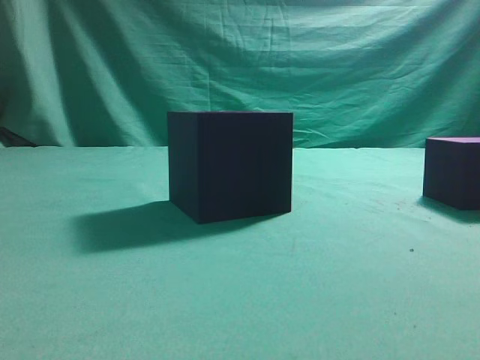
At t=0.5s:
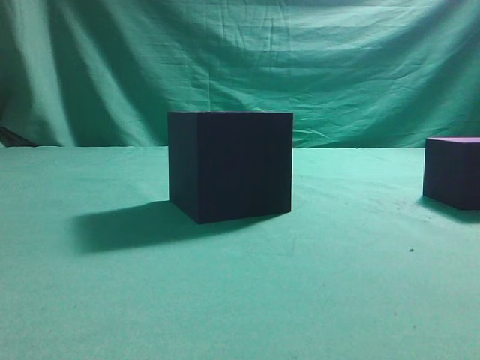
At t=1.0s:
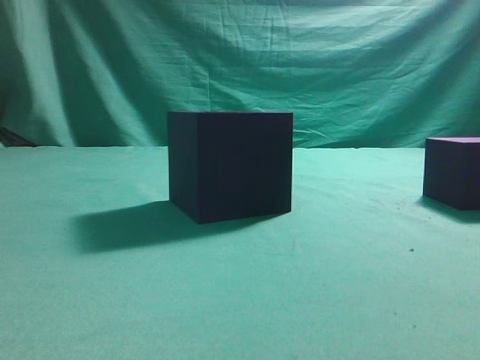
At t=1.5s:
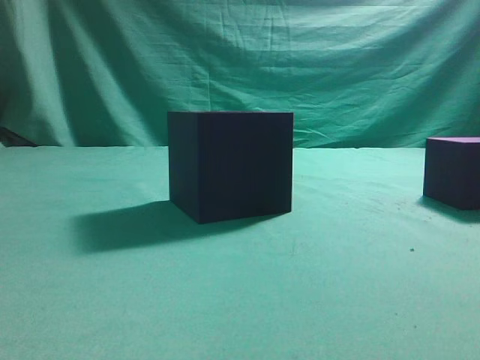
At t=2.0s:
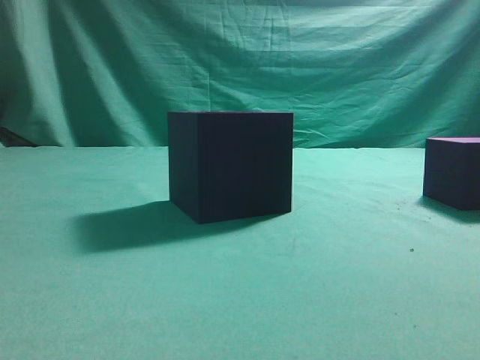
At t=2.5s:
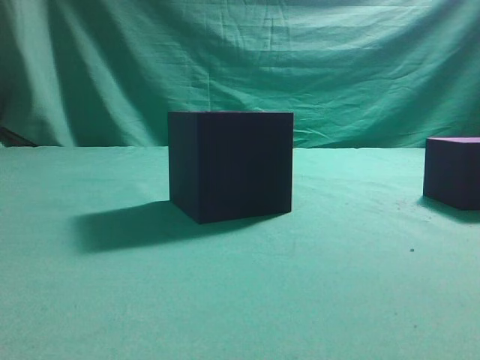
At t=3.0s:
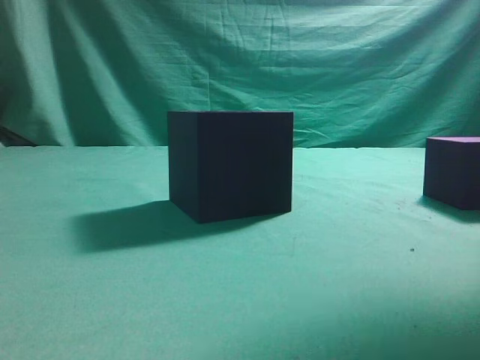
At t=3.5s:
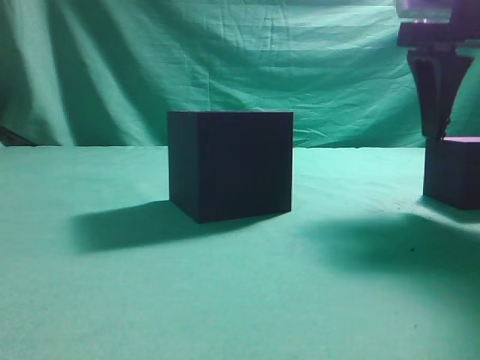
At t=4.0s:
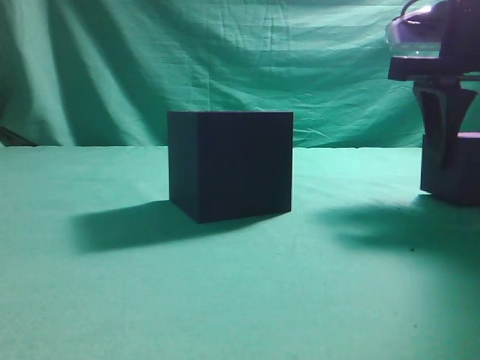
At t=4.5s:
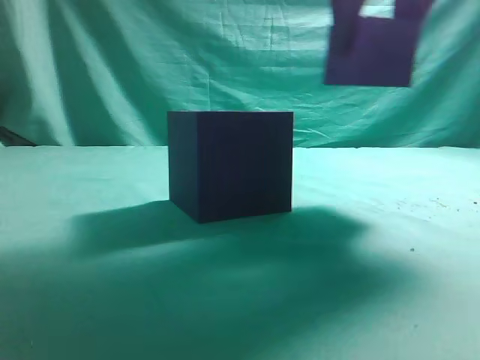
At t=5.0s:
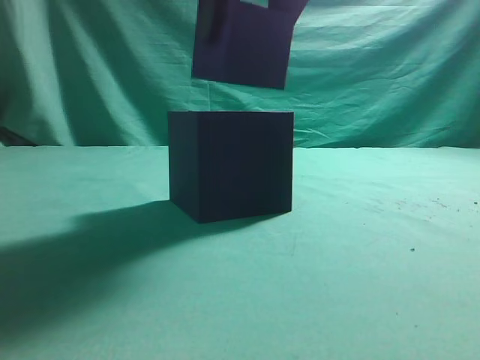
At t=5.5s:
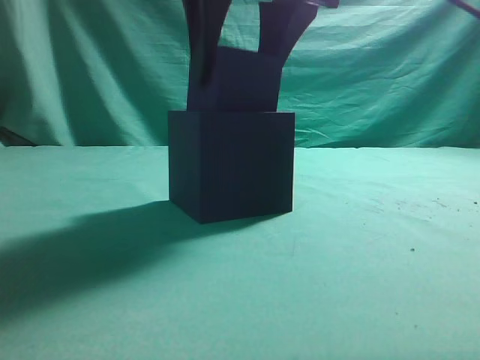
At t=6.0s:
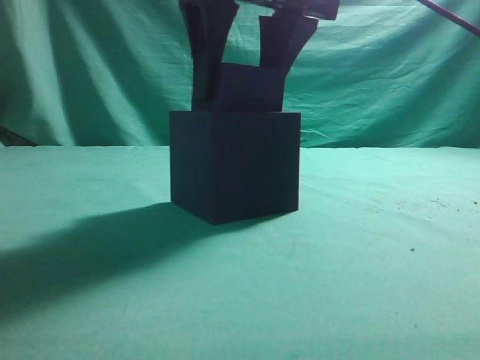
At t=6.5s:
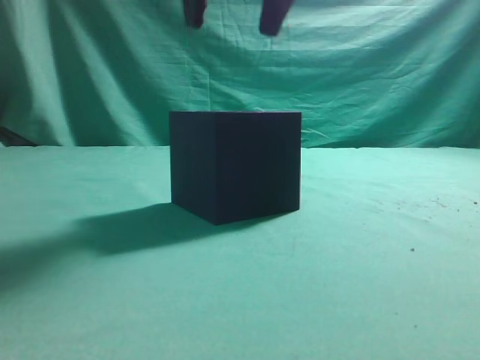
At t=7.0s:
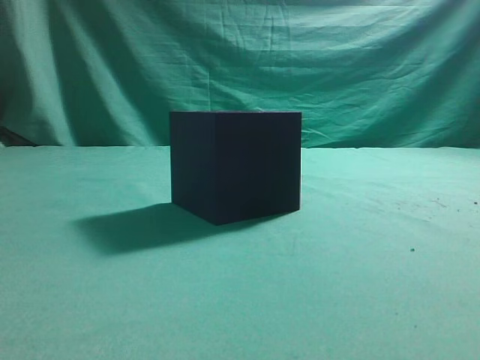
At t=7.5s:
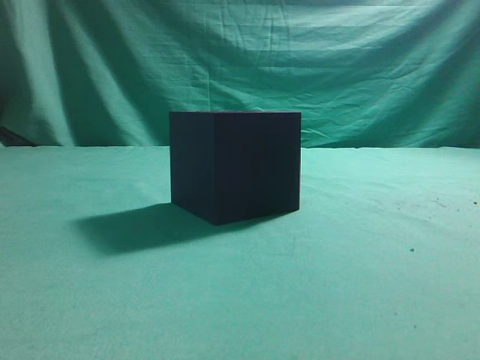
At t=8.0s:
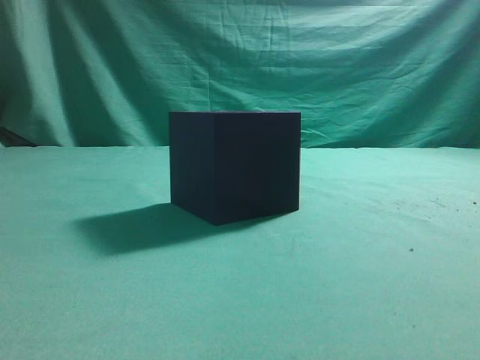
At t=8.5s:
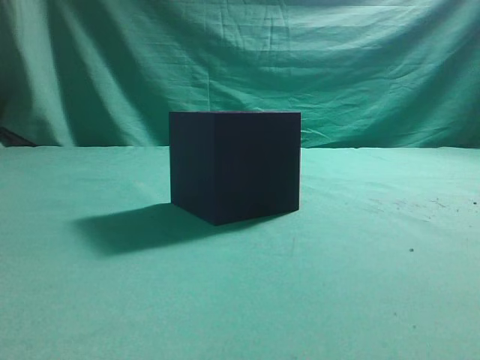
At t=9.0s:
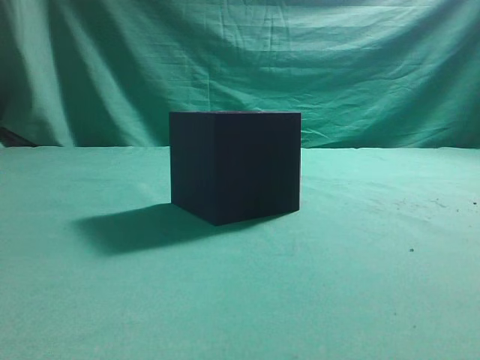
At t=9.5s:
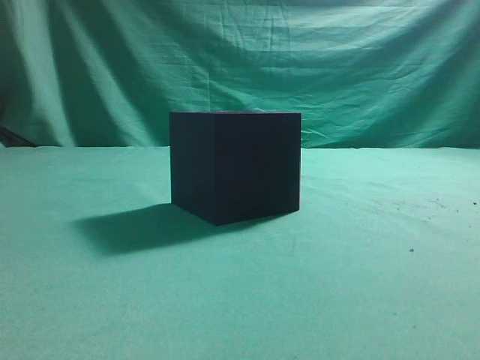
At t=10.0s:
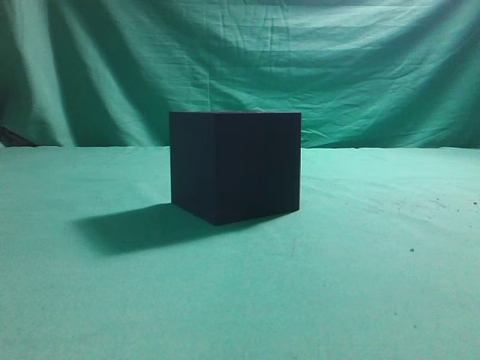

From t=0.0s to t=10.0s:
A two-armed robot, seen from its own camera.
Task of the whole recording: pick up the cube block and place it into the cube groove.
Step, from t=0.0s to t=4.0s: Grasp the cube.
Step, from t=4.5s to t=6.0s: Place cube into the cube-shaped recess.
From t=2.0s to t=4.0s: The right gripper is displaced forward by about 25 cm, and opens.
From t=4.0s to t=6.0s: The right gripper travels to the left by some 20 cm.
From t=6.0s to t=8.0s: The right gripper goes approximately 30 cm backward, to the right and upward, and closes its fingers.
